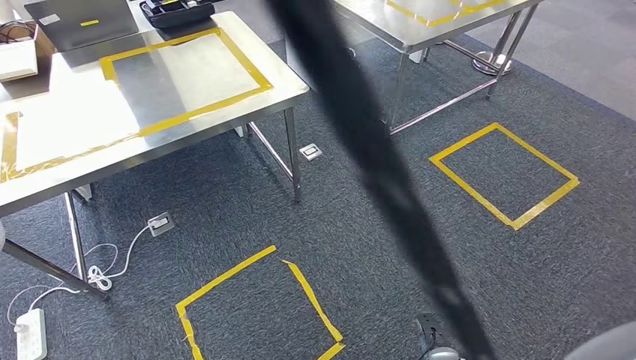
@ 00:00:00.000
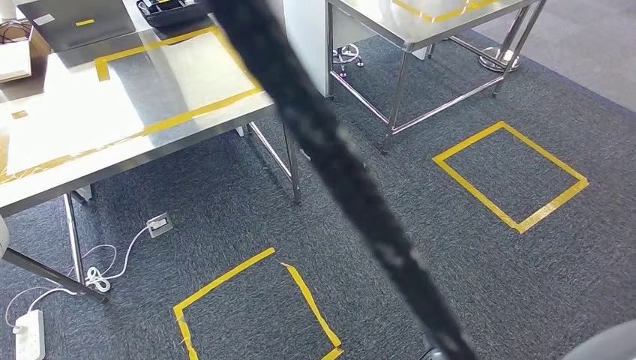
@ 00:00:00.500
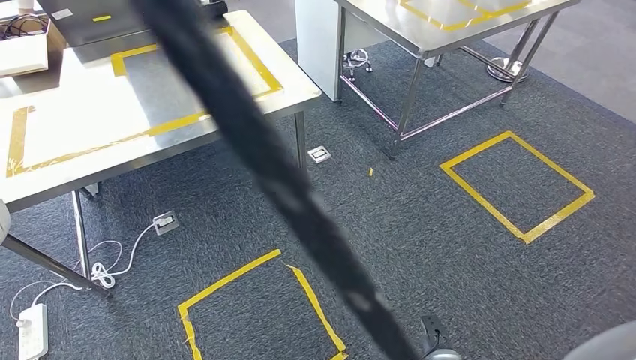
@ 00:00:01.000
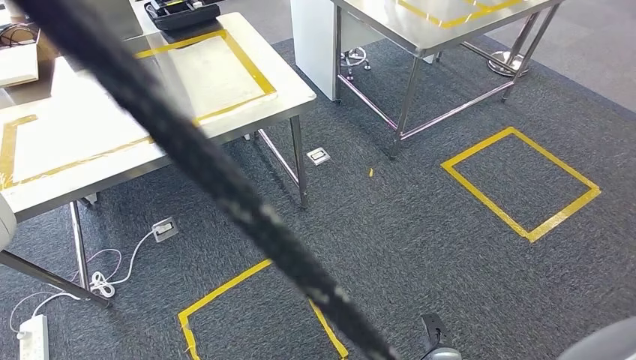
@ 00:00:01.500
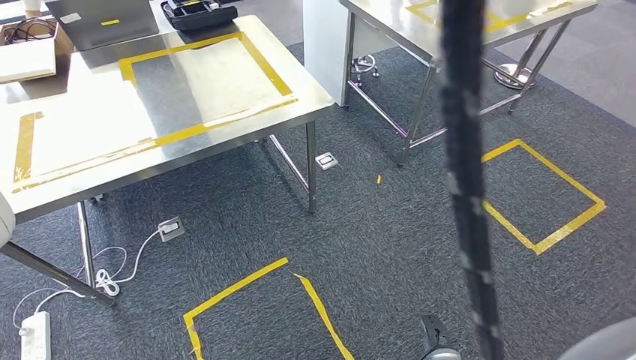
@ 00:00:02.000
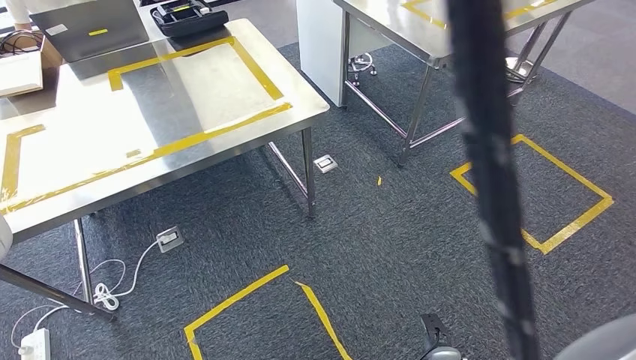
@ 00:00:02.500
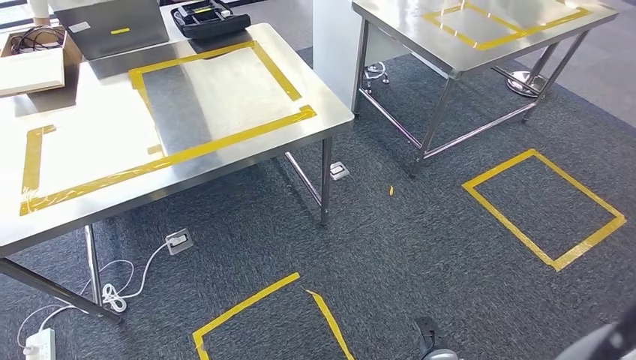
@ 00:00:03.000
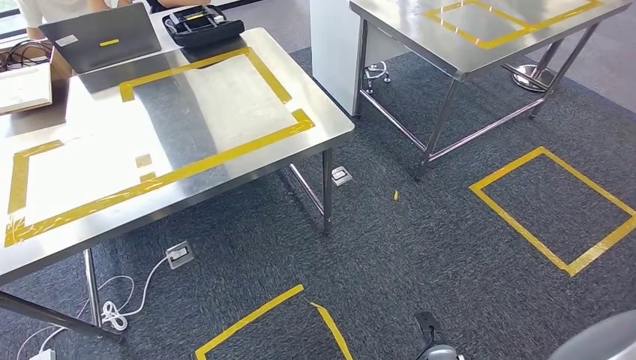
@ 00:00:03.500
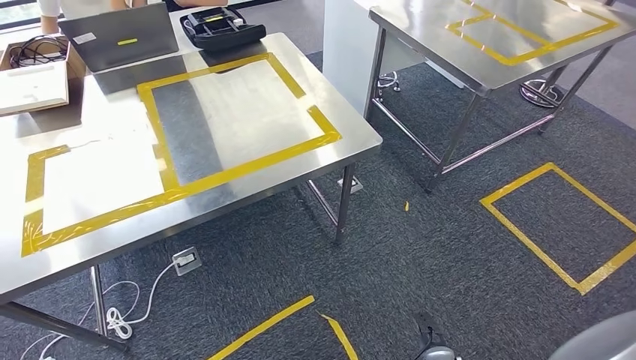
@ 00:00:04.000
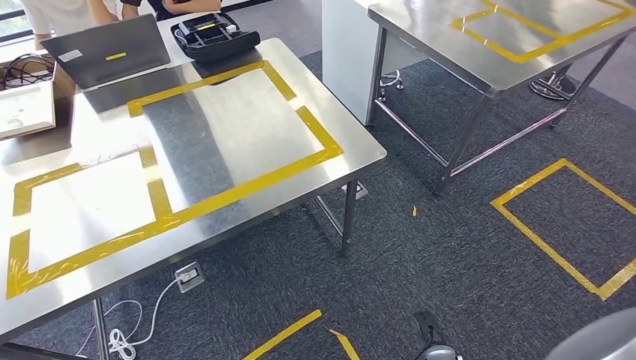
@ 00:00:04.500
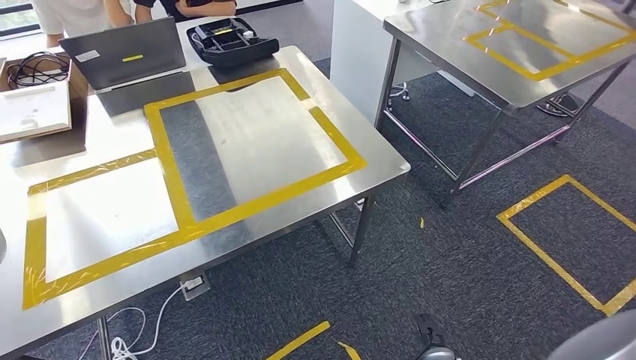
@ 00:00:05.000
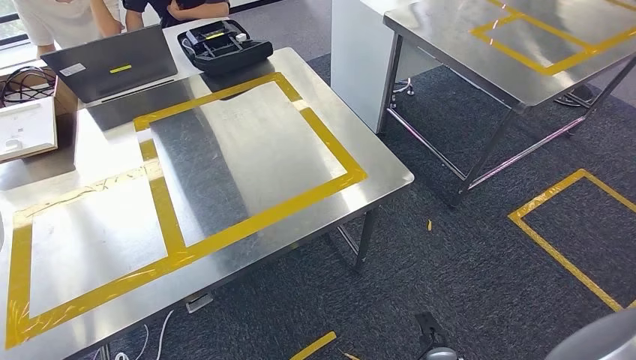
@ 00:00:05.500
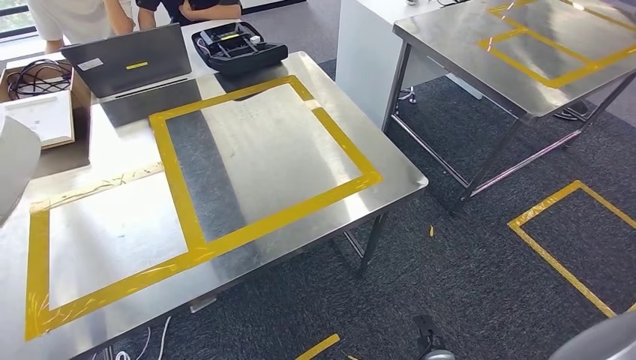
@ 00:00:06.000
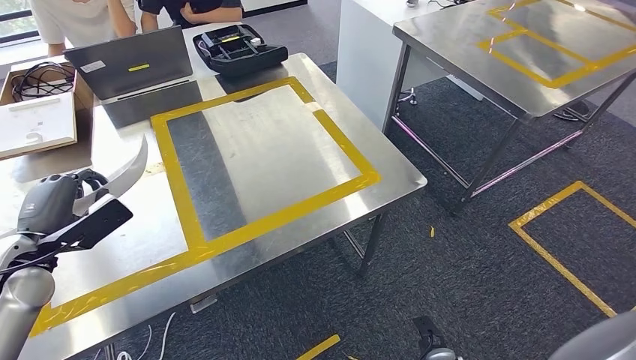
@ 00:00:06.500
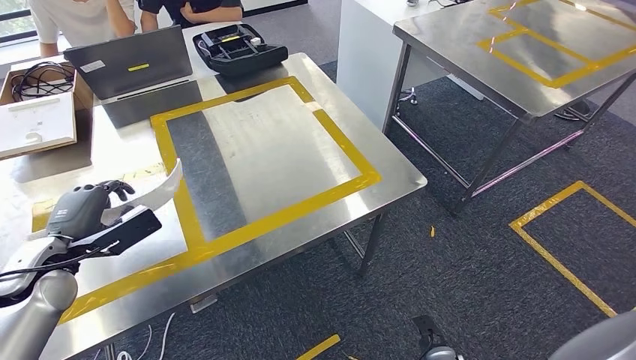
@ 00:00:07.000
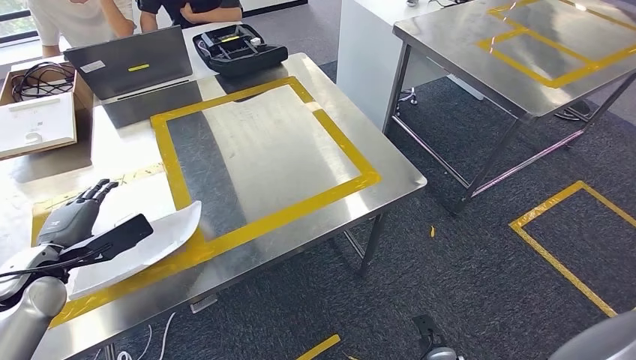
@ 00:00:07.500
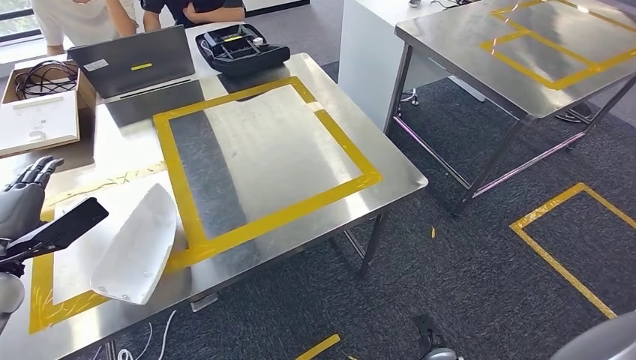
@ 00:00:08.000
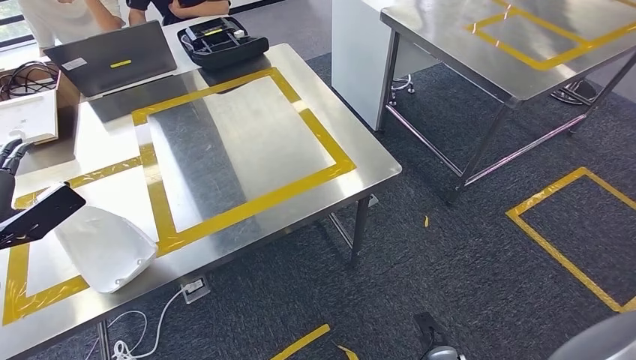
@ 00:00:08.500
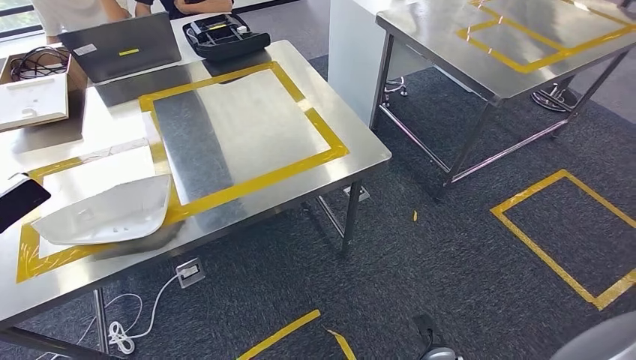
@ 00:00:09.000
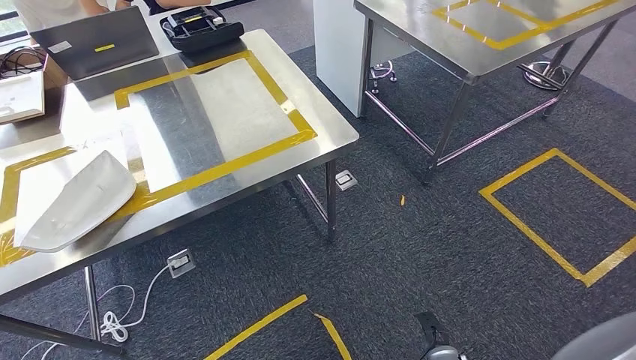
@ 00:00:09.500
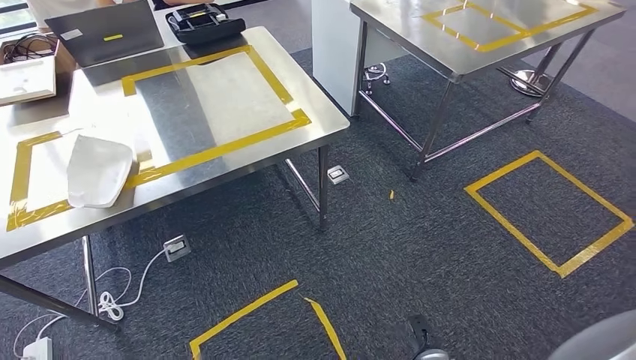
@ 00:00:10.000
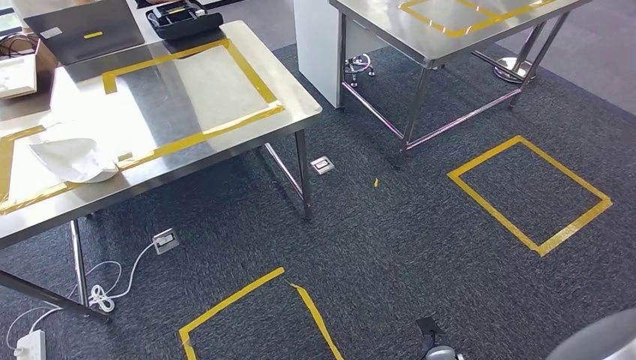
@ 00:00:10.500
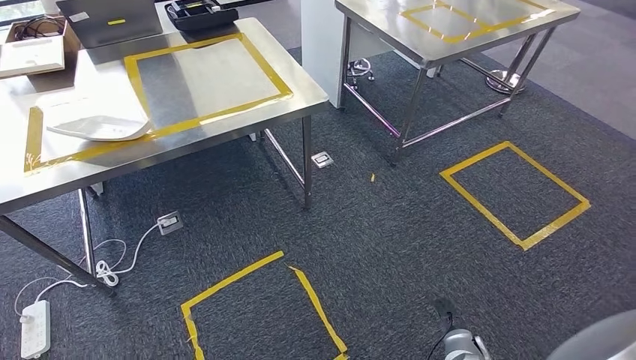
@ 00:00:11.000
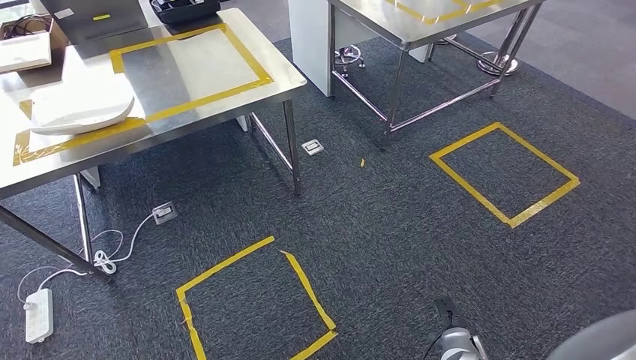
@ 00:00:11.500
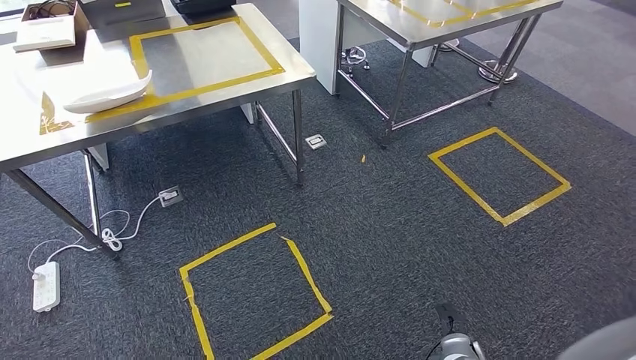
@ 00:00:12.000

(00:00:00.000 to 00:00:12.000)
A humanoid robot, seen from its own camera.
Step, 00:00:00.000 - 00:00:09.500: Insert the small parts into the corresponding holes on the workbench.
Step, 00:00:10.000 - 00:00:12.000: Move to the initial position of the workbench.
00:00:06.000 - 00:00:08.000: The left hand travels to the right by about 10 cm.

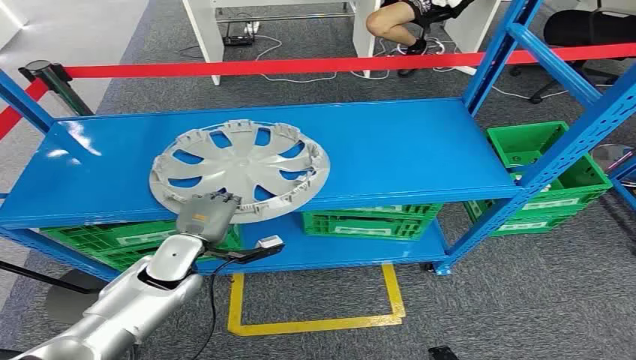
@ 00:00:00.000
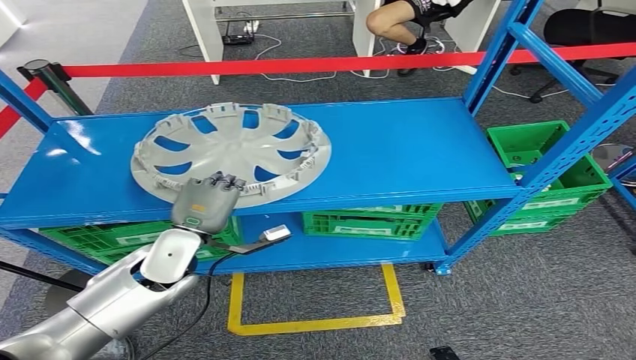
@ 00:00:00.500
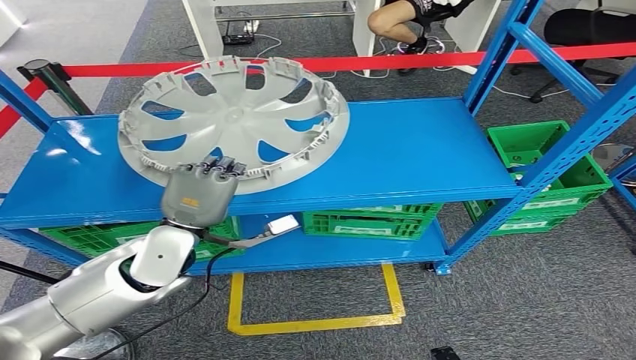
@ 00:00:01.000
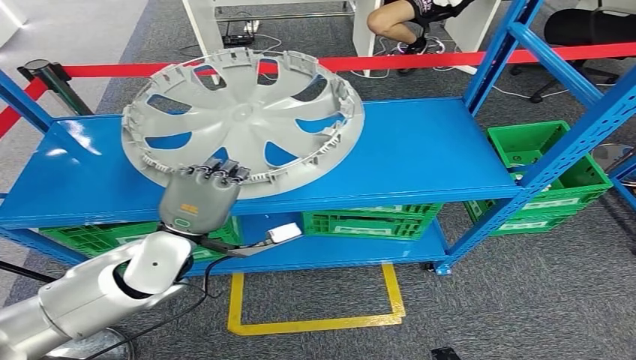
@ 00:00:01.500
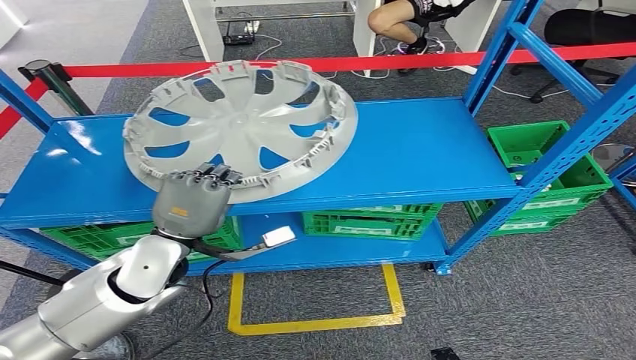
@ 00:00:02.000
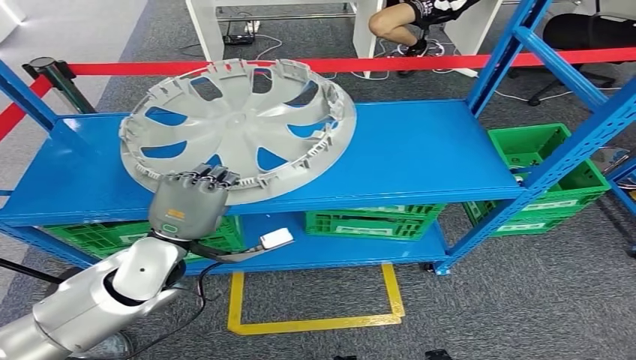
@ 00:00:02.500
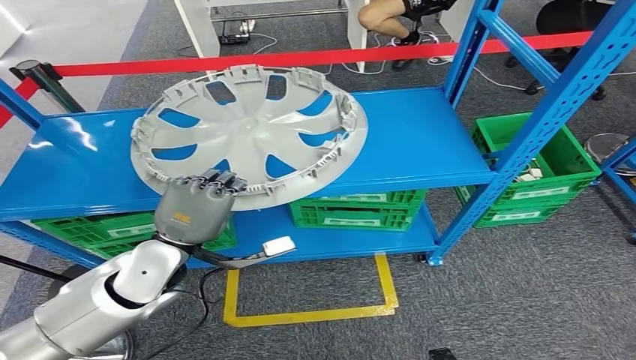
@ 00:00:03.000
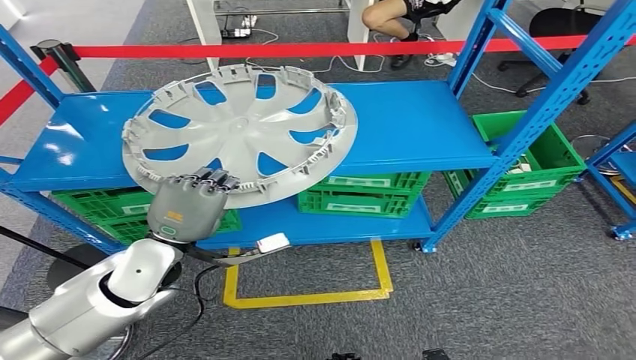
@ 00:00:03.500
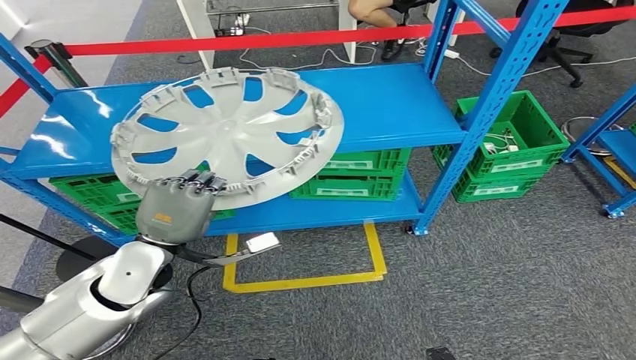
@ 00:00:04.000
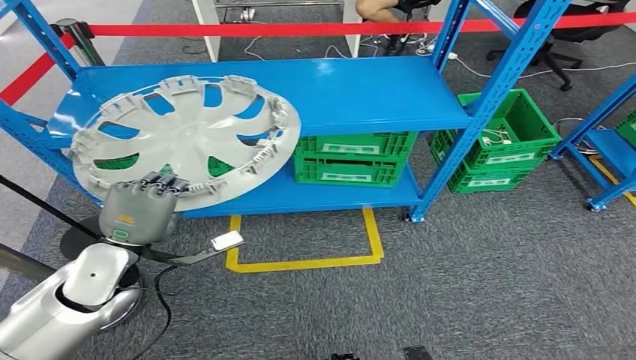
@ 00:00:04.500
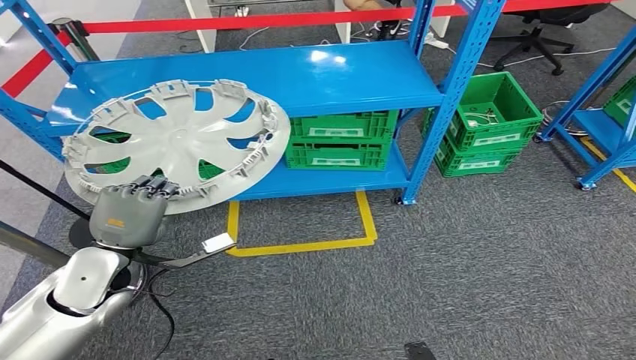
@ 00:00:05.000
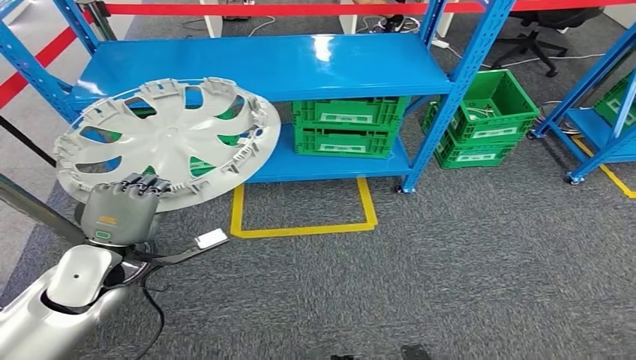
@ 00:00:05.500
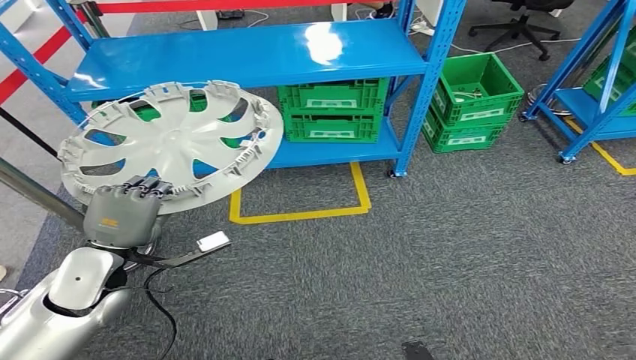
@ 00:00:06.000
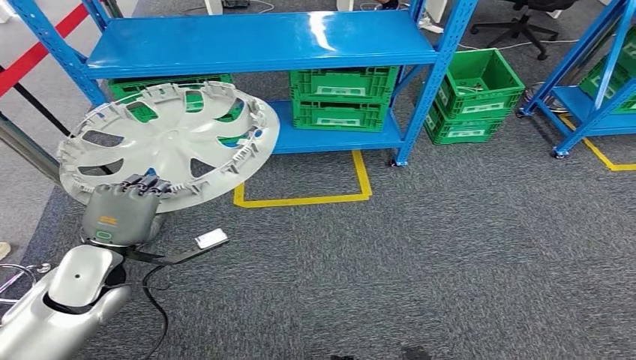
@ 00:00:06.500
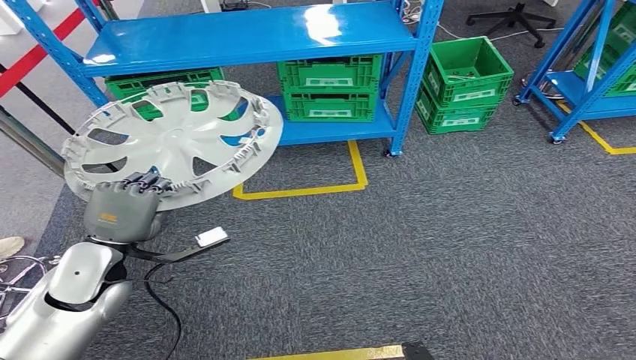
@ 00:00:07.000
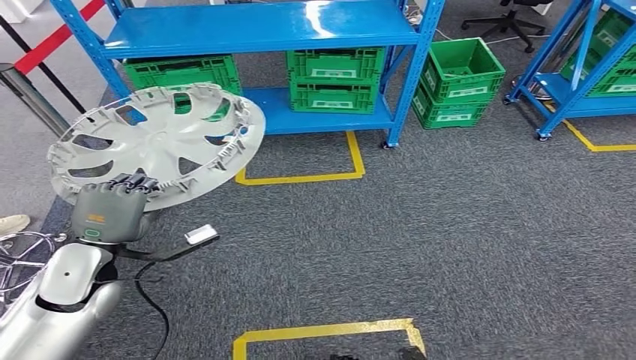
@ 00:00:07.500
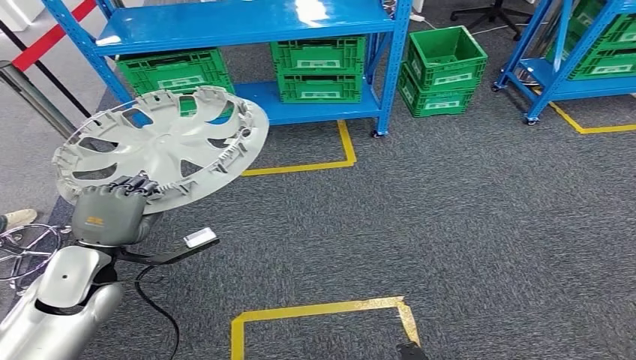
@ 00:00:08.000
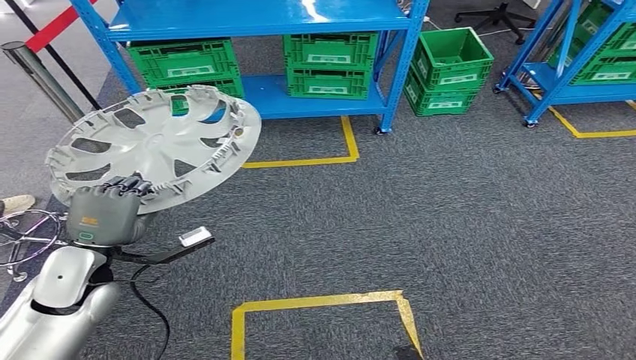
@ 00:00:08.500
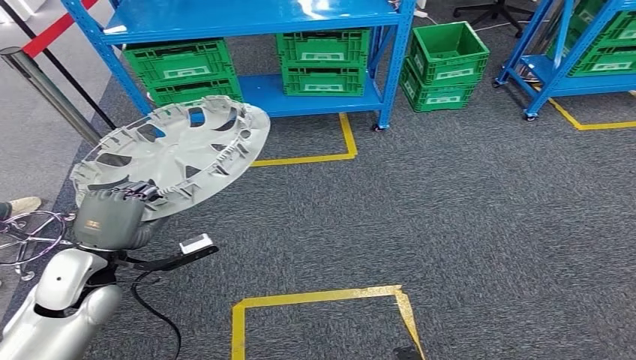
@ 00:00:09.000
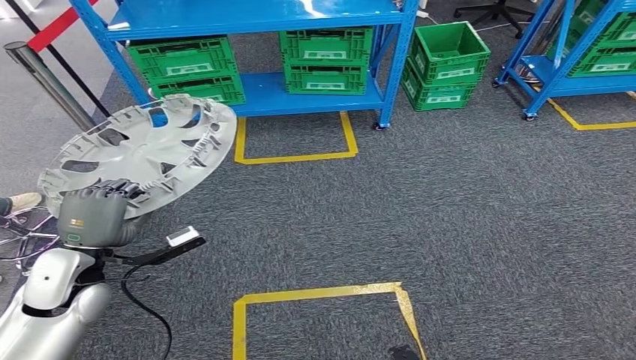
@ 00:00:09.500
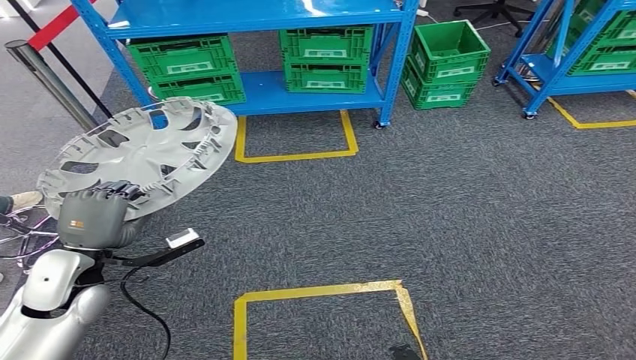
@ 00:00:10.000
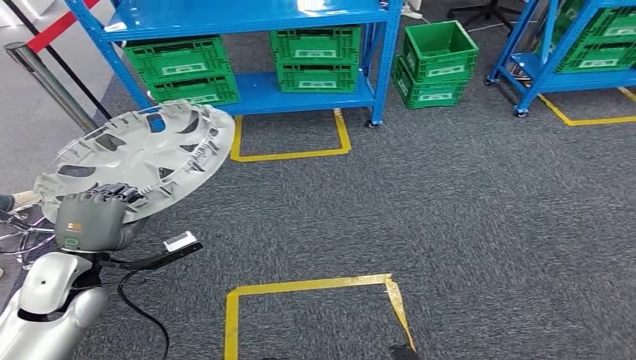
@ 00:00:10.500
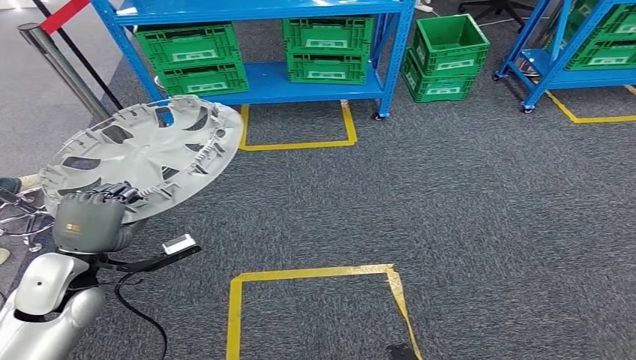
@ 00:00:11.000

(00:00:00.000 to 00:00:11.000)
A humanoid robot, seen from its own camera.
Step, 00:00:00.000 - 00:00:04.500: Take small components from the rack.
